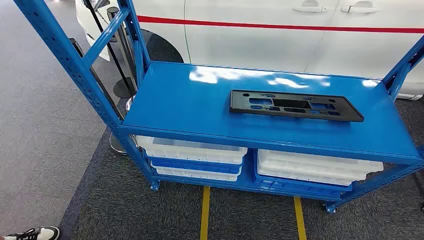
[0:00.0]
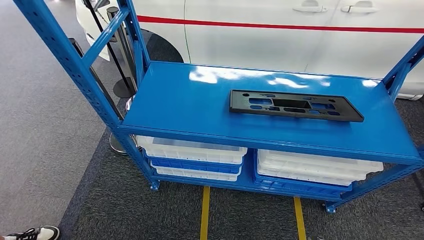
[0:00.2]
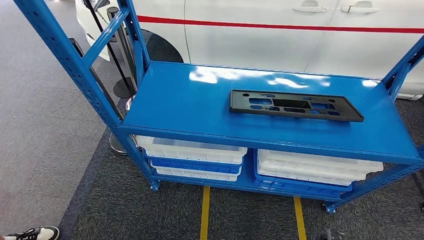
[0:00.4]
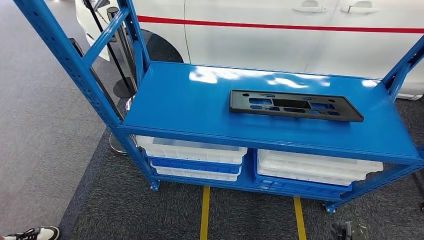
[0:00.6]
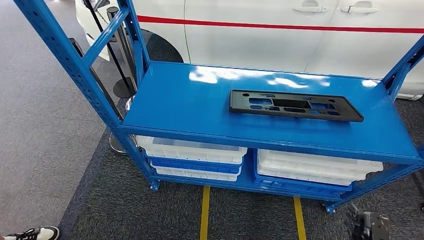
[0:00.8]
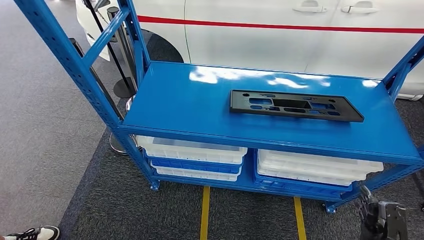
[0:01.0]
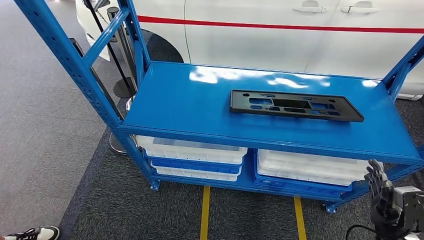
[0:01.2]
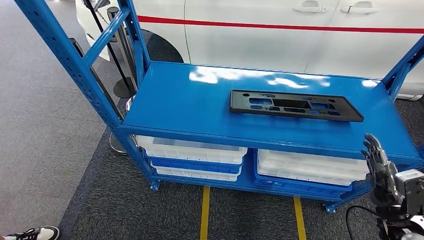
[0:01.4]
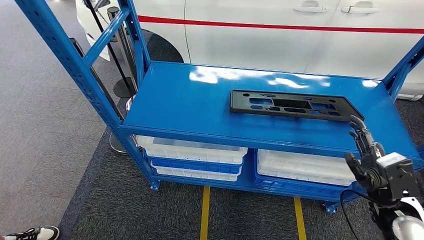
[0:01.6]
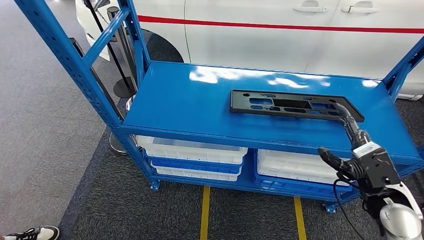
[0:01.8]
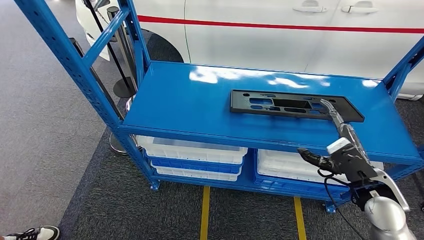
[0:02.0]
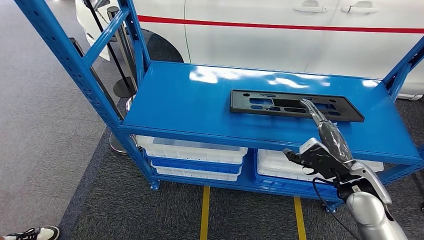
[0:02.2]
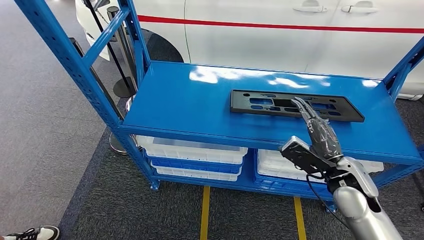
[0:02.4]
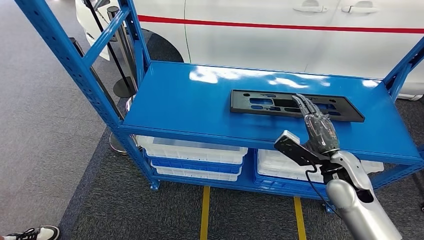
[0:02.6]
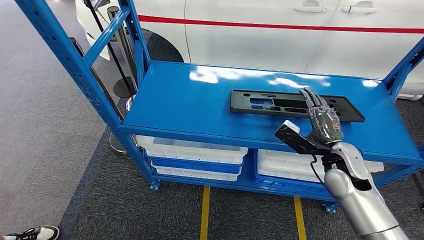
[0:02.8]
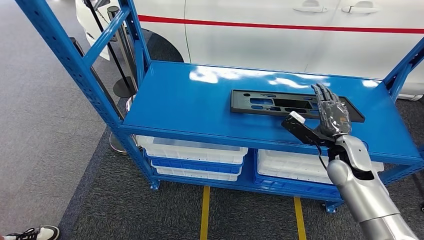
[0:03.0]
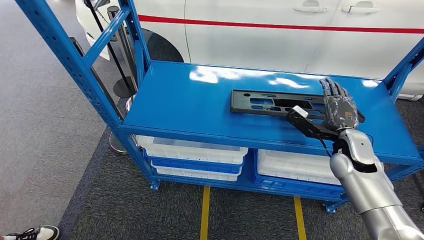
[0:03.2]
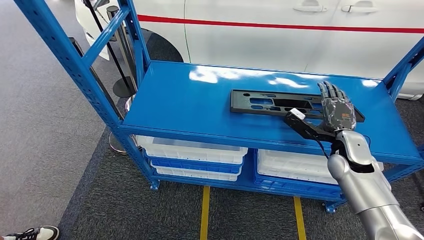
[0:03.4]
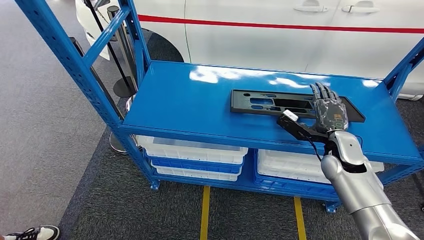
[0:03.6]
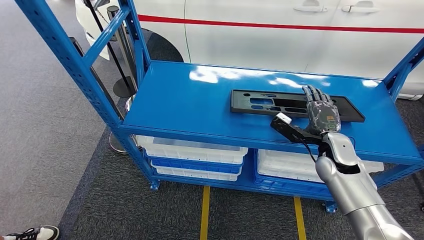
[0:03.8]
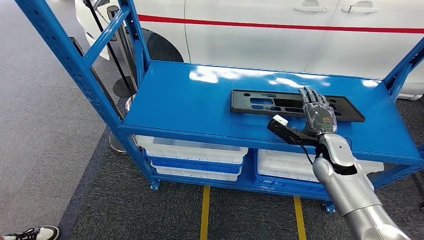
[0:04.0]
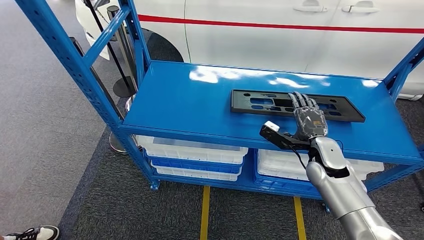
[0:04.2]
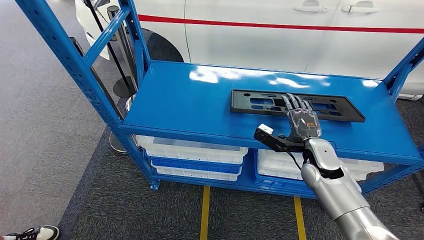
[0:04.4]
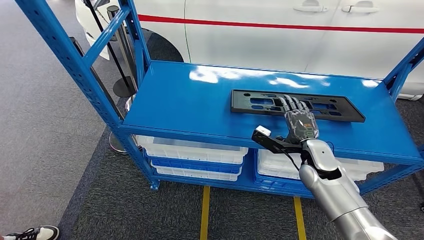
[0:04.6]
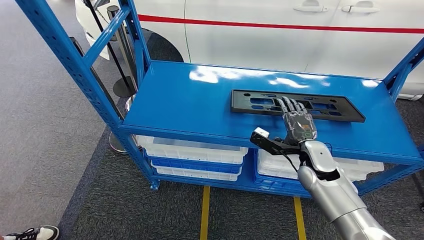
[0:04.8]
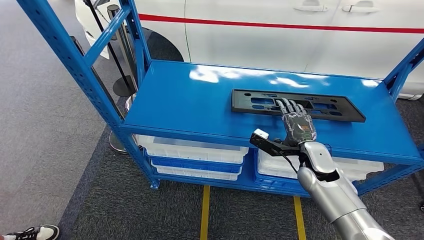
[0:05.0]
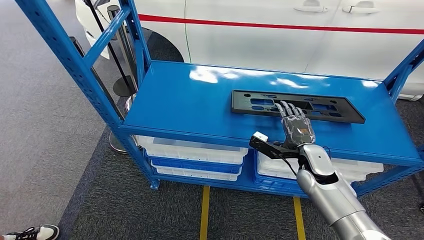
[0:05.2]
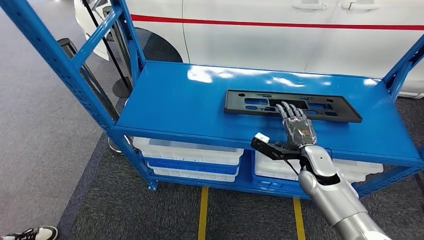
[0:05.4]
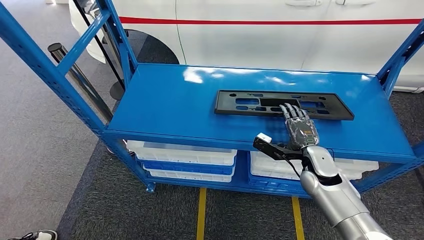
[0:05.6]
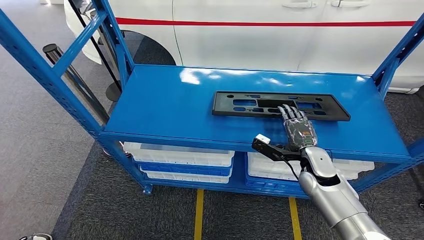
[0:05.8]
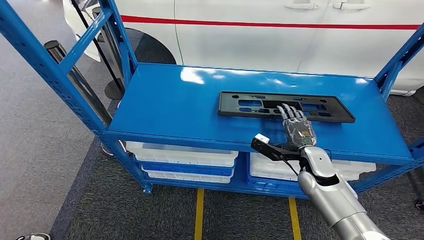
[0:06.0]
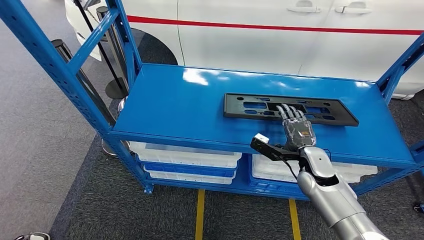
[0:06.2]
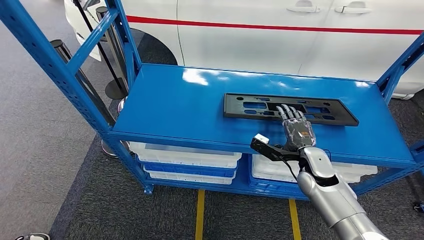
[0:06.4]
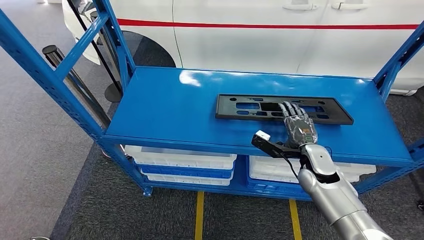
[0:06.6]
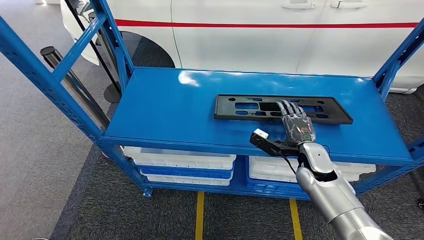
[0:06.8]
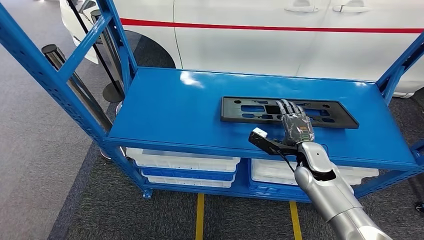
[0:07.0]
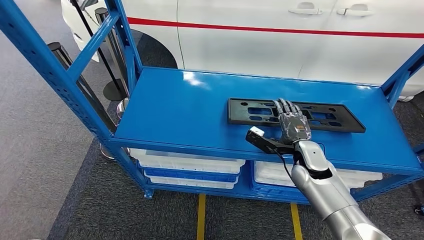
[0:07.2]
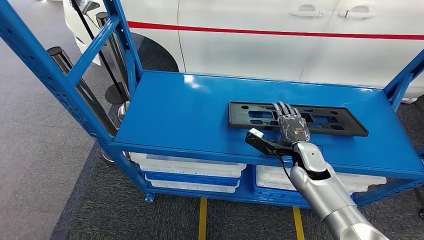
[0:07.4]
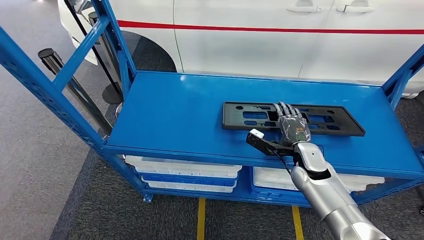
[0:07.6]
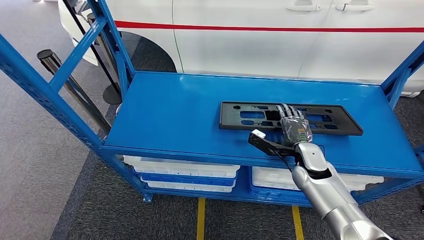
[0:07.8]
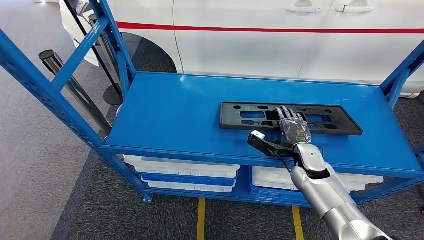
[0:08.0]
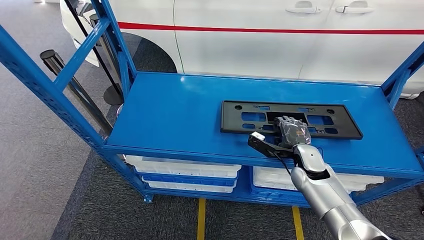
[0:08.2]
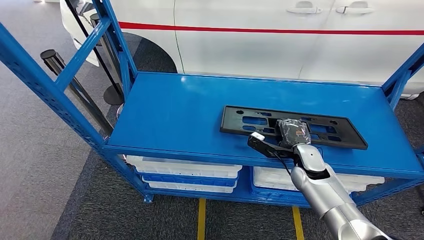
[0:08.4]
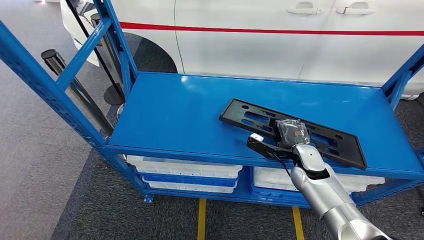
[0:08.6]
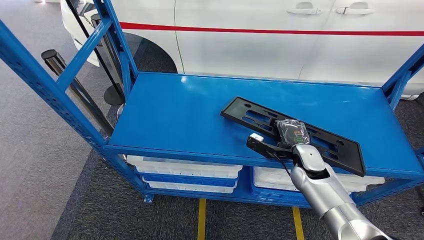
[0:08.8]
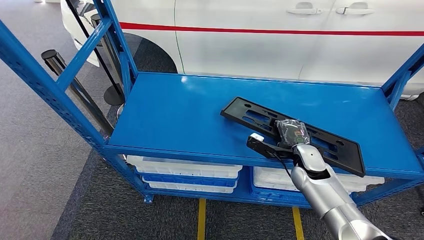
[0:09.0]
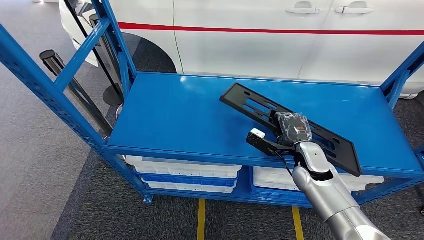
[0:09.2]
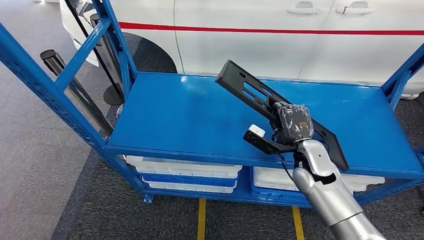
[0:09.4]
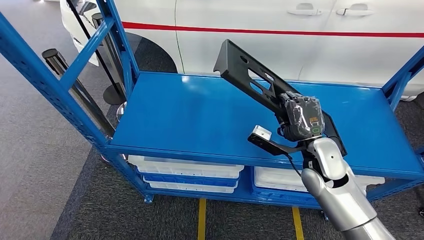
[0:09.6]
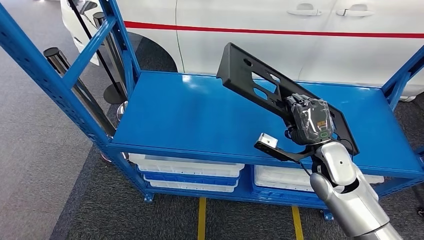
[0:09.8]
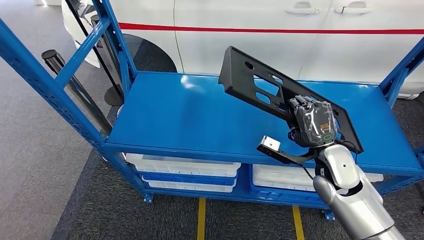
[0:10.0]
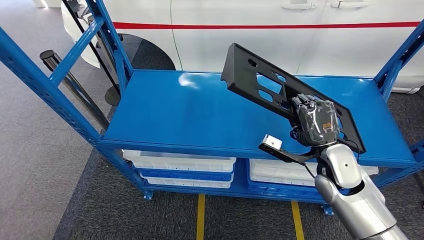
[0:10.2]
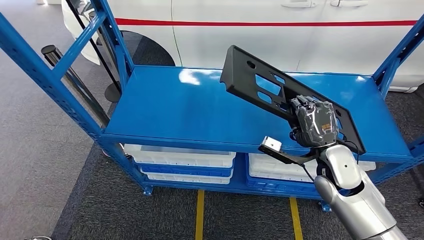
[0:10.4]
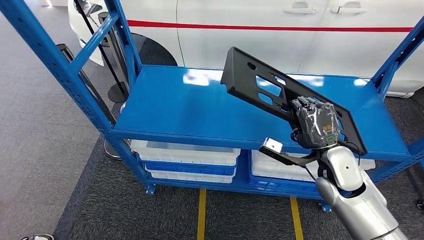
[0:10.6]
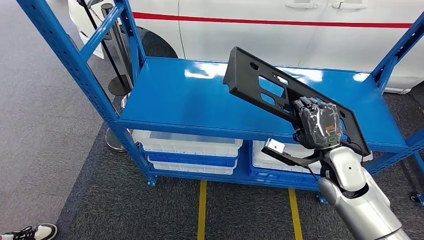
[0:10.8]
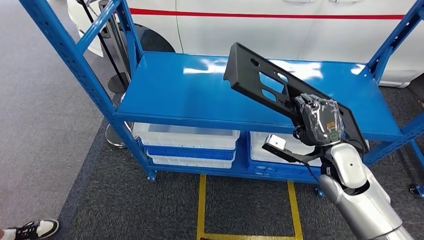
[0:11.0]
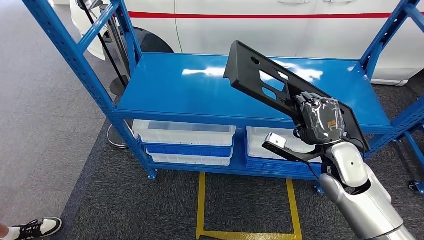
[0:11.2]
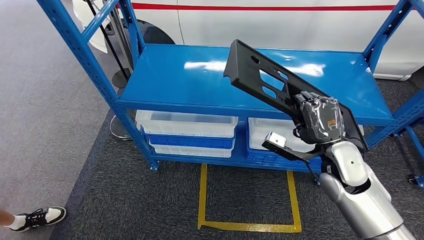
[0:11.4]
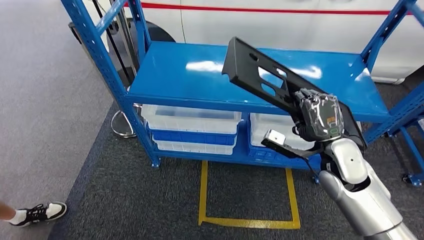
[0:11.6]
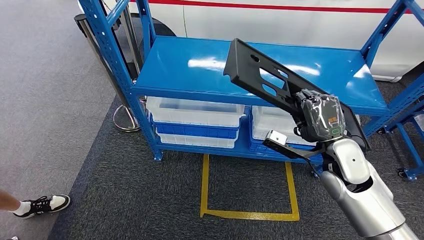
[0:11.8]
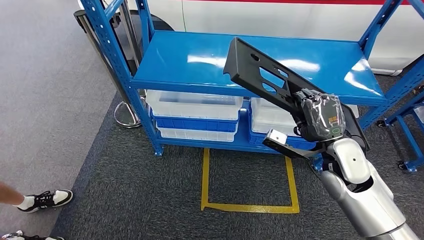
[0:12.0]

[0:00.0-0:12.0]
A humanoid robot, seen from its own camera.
Step, 0:00.0 to 0:10.0: Pick up the large material from the shelf.
0:01.6 to 0:03.0: The right hand is displaced forward and to the left by roughly 15 cm.
0:03.0 to 0:04.4: The right hand travels to the left by about 5 cm.
0:07.6 to 0:09.0: The hands make only small movements.

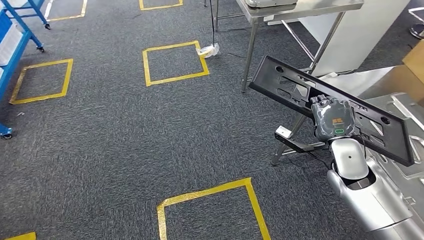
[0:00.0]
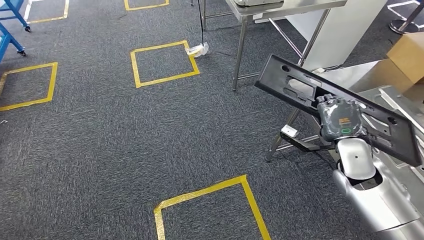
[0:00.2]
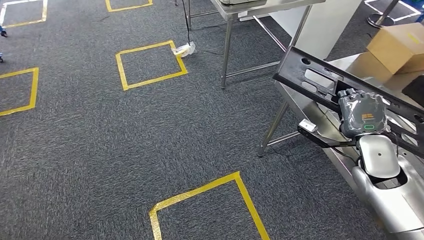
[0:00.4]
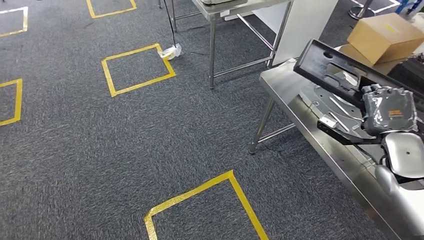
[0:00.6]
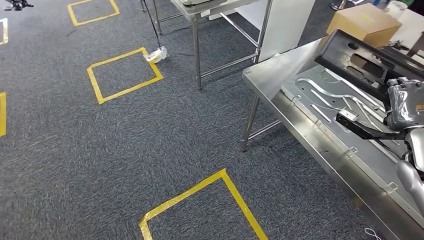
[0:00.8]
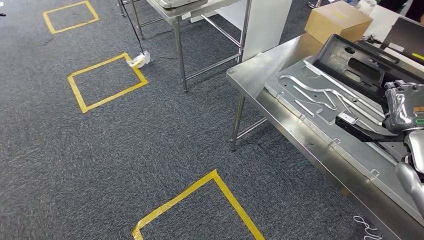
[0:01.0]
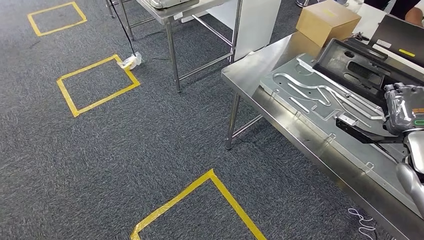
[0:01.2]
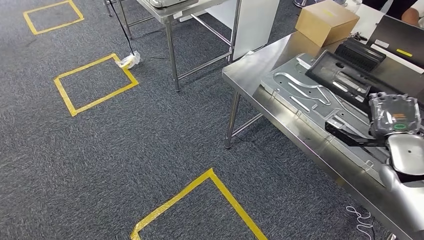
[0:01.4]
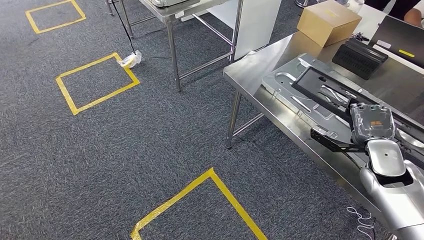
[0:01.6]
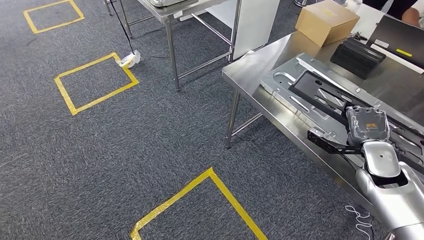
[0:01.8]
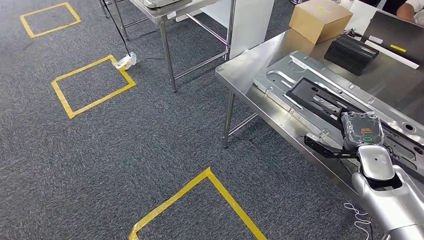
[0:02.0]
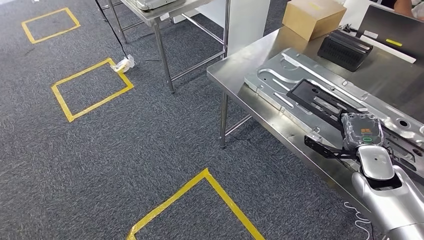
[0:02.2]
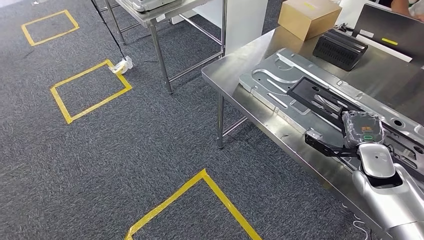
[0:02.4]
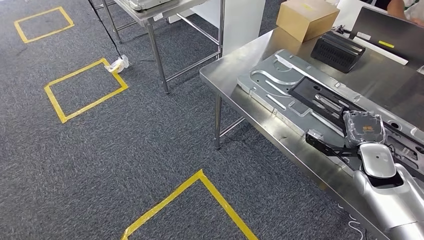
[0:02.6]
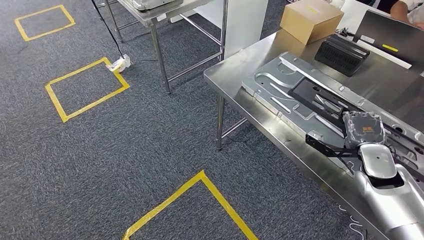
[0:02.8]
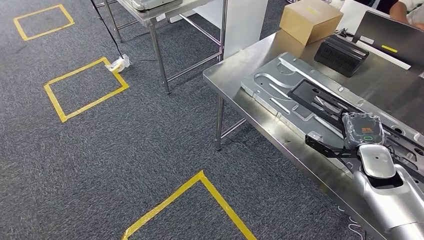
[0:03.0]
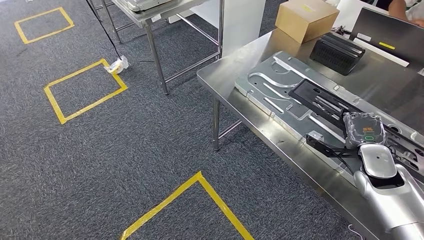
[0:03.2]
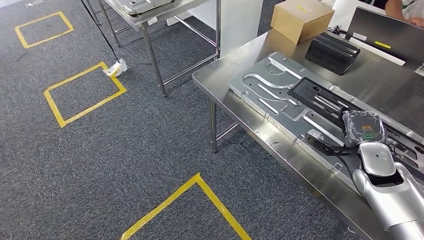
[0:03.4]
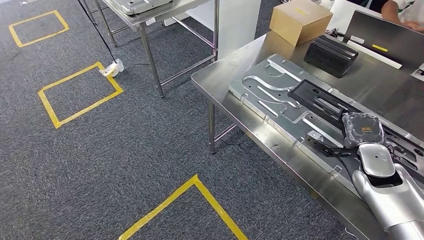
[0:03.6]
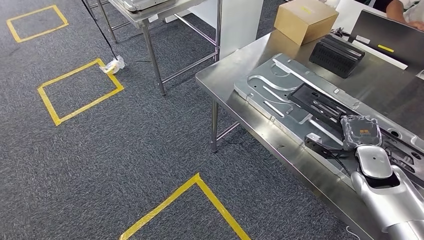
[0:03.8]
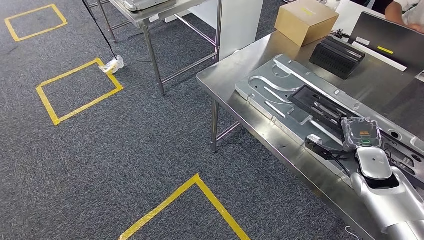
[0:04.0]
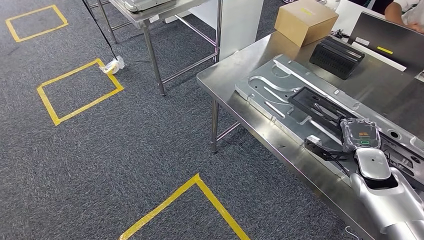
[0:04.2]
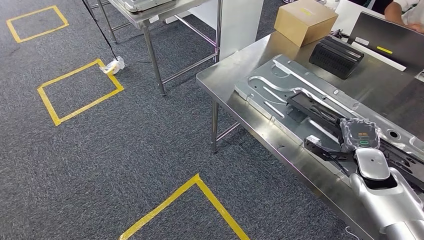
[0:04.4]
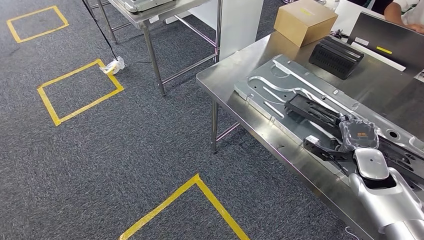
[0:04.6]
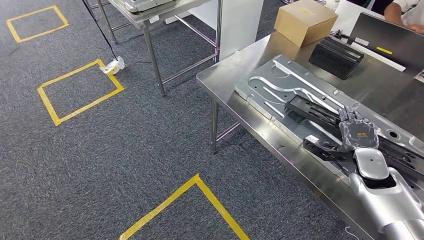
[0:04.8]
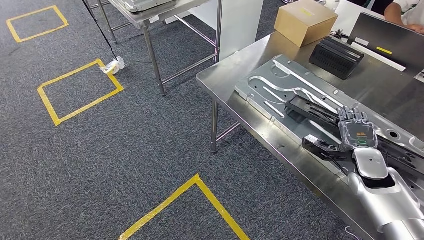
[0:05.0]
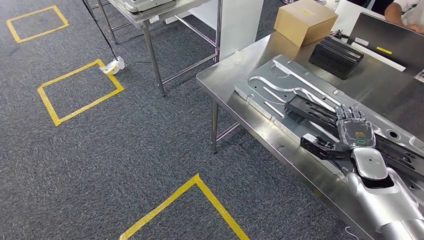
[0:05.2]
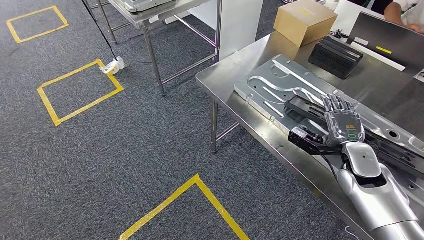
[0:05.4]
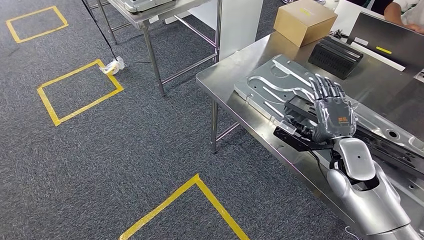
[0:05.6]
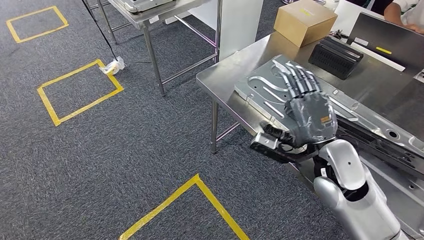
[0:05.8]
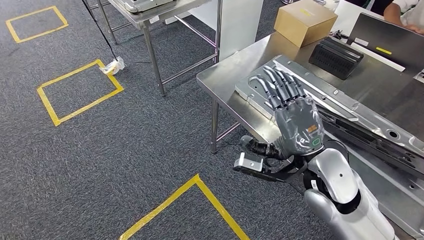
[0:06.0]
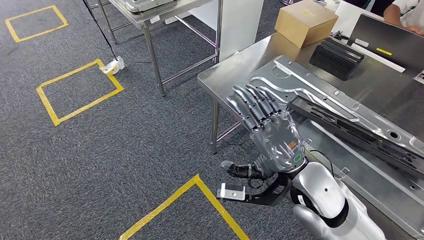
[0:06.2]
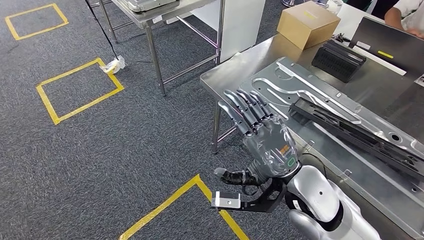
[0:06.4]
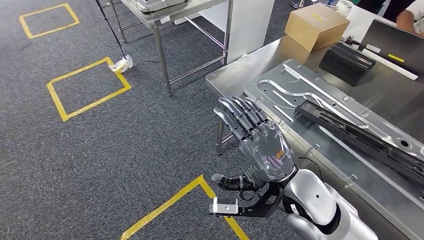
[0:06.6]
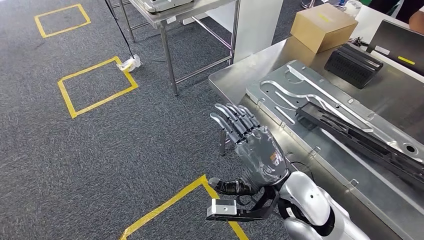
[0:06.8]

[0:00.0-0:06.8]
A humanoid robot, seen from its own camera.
Step, 0:00.0 to 0:02.2: Move the large material to the workbench.
Step, 0:02.4 to 0:06.8: Insert the large material into the corresponding slot on the workbench.
0:04.0 to 0:05.4: The hands make only small movements.
